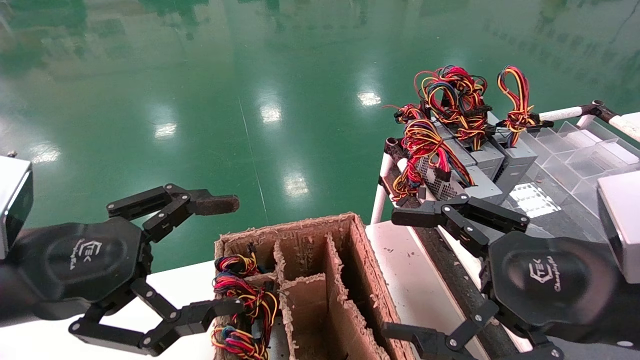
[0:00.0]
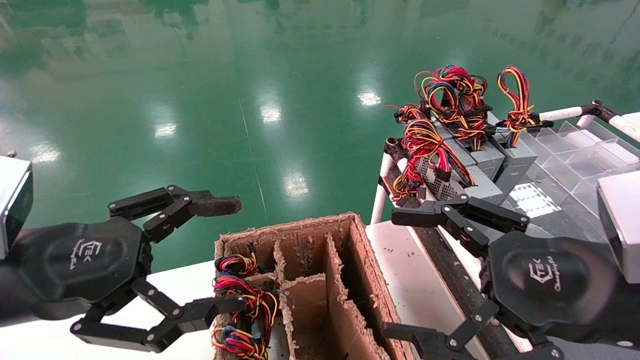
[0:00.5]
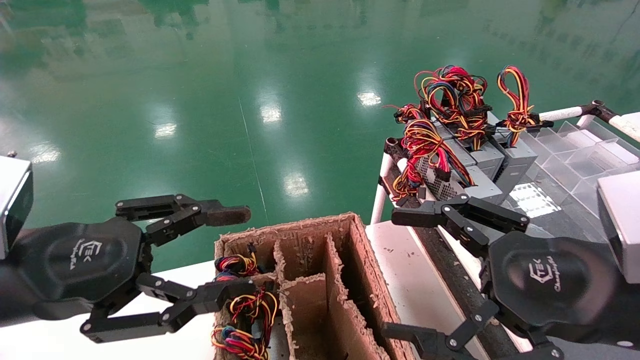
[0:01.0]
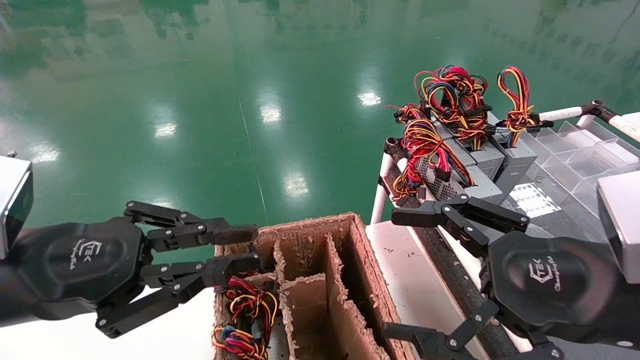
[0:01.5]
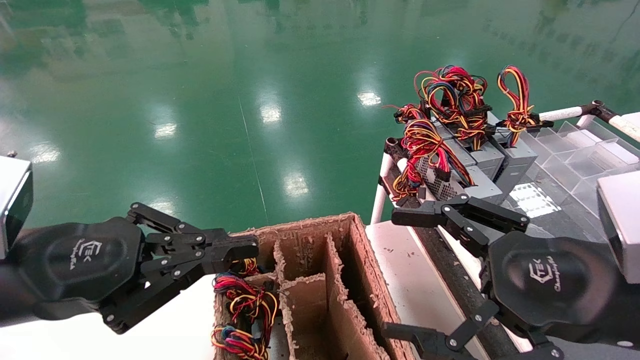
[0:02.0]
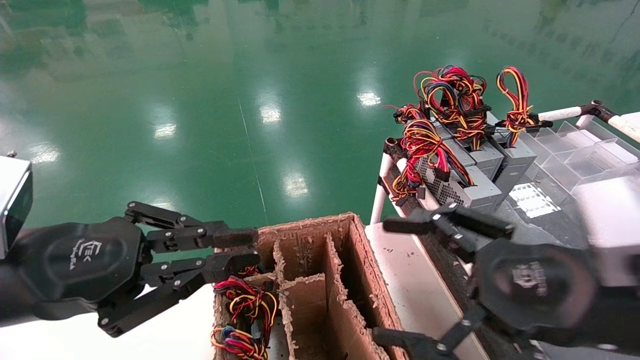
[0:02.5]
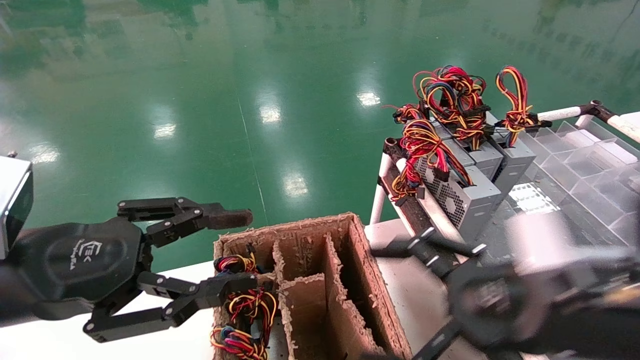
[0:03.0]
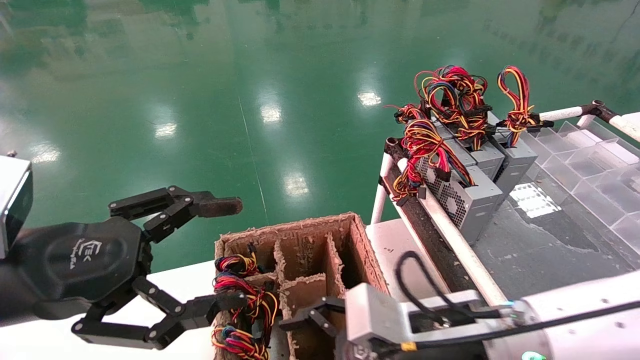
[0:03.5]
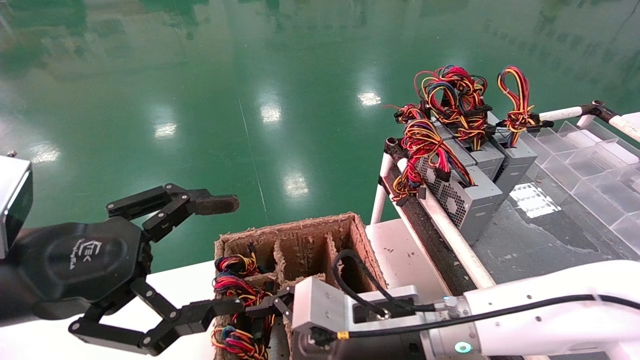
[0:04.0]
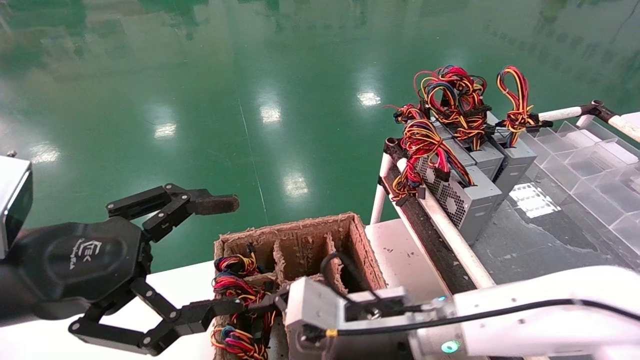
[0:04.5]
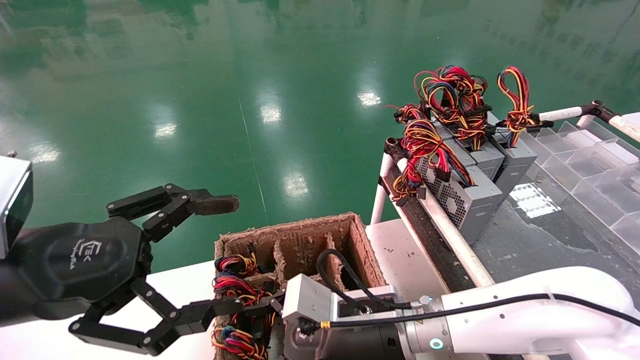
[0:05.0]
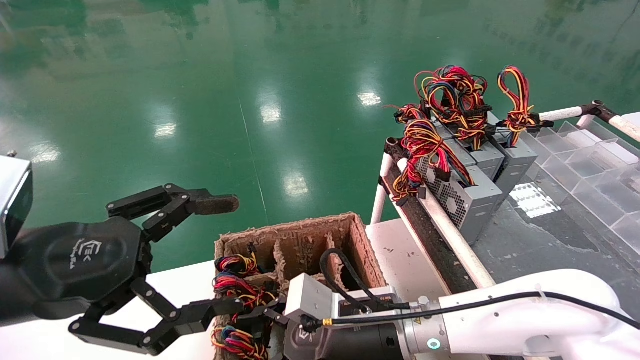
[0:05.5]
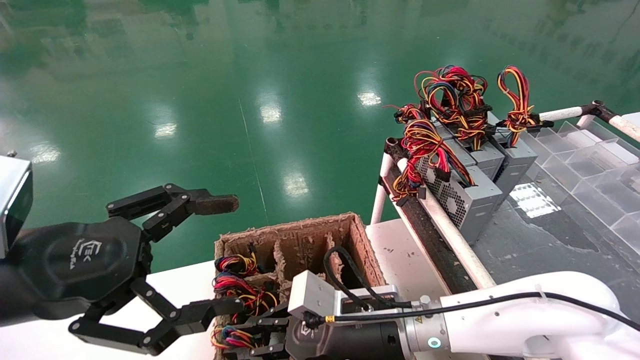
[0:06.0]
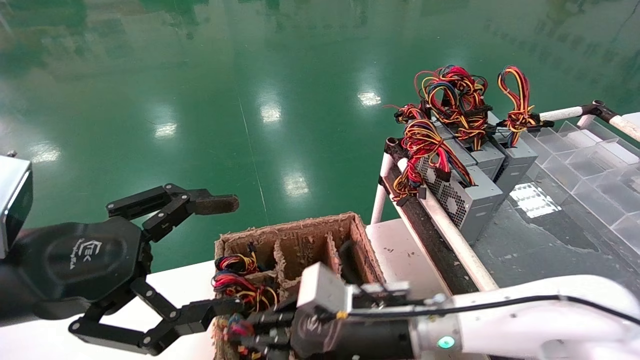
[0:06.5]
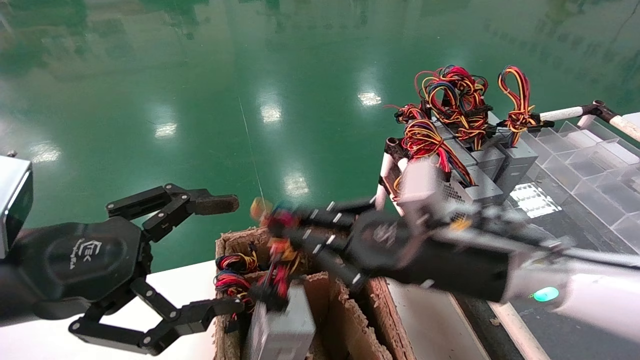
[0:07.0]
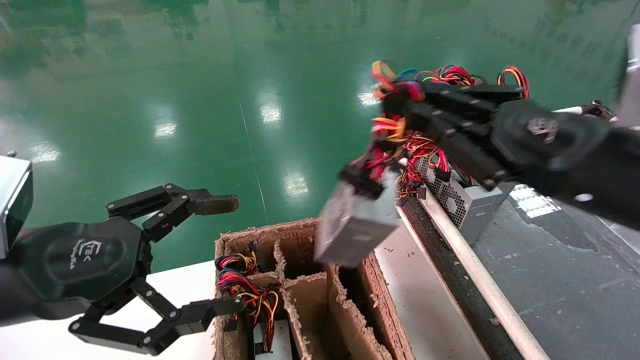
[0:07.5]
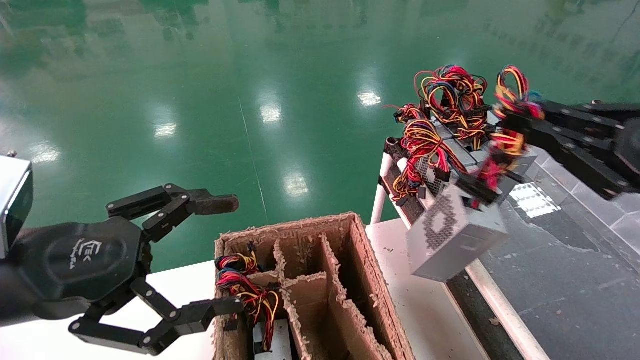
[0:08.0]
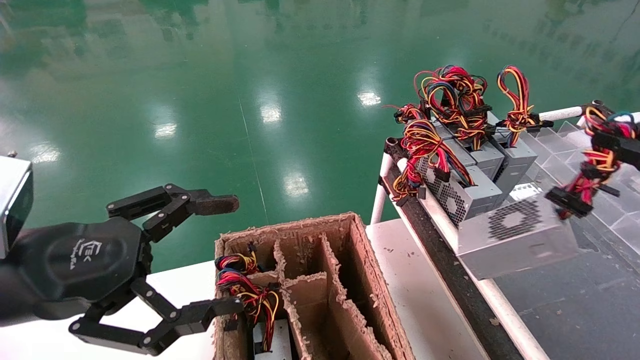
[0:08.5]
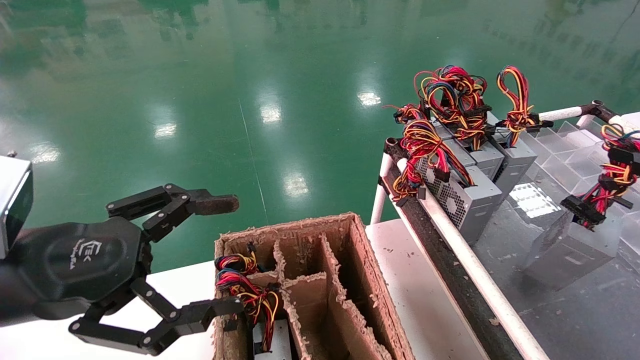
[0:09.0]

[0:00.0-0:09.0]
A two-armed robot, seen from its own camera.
Step, 0:02.0 to 0:06.0: Grab and lift the power supply from the large box.
0:00.0 to 0:02.0: The left gripper closes.
0:02.0 to 0:04.5: The left gripper opens its fingers. The right gripper heads to the left, downward and forward, covering about 25 cm.
0:04.5 to 0:07.0: The right gripper moves upward and to the right, about 15 cm, and closes.
0:07.0 to 0:09.0: The right gripper travels to the right by approximately 30 cm.

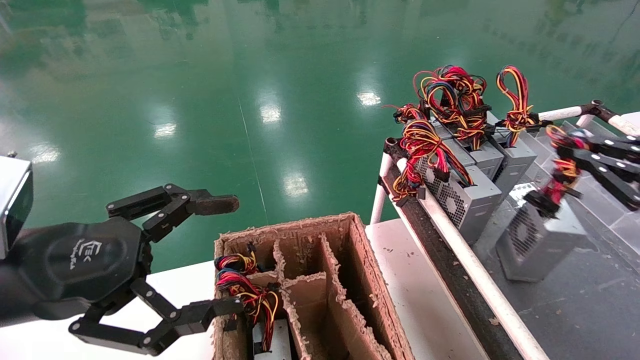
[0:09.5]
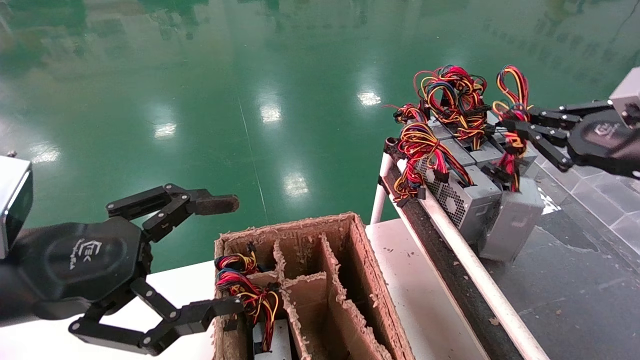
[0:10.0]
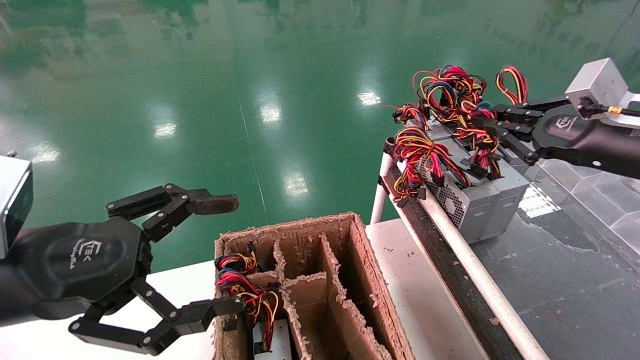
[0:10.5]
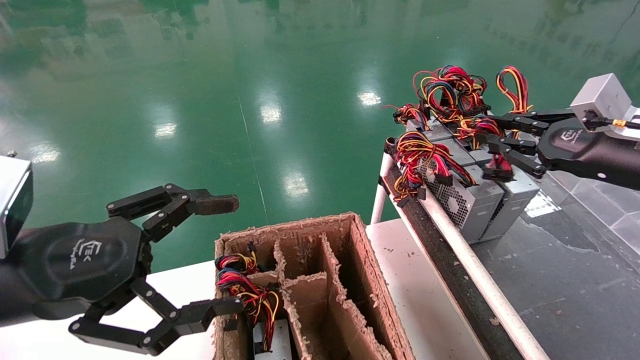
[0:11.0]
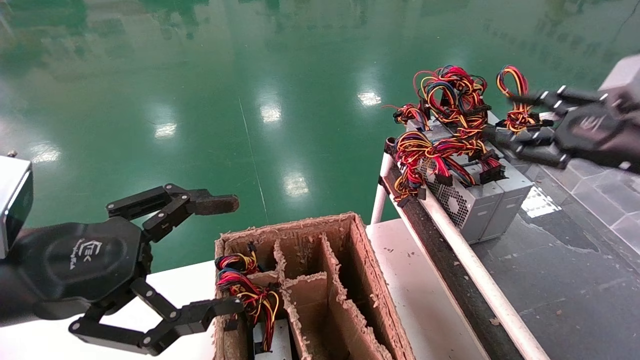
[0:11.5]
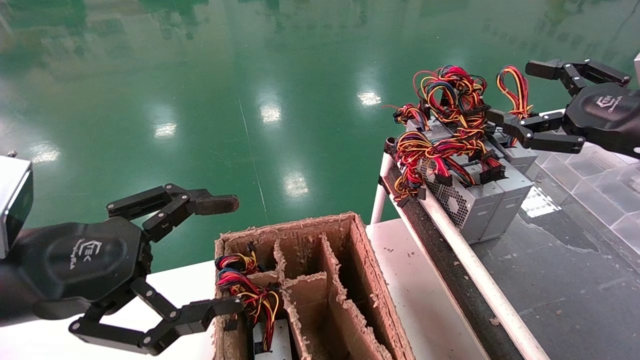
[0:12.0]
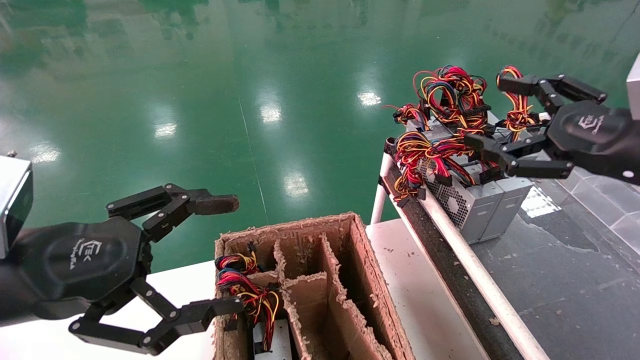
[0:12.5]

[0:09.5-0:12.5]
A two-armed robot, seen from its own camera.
0:09.5 to 0:11.0: The right gripper moves forward and to the left, some 10 cm.
0:11.0 to 0:12.5: The right gripper is displaced backward by roughly 5 cm, and opens up.

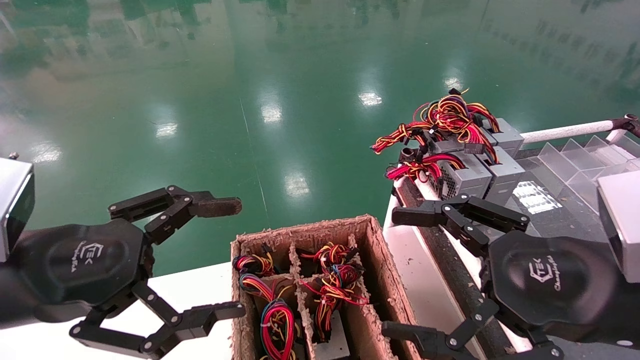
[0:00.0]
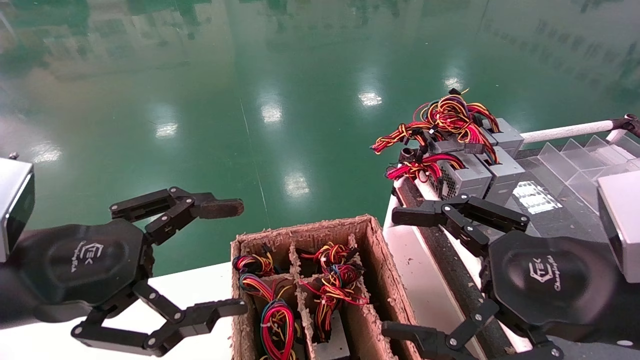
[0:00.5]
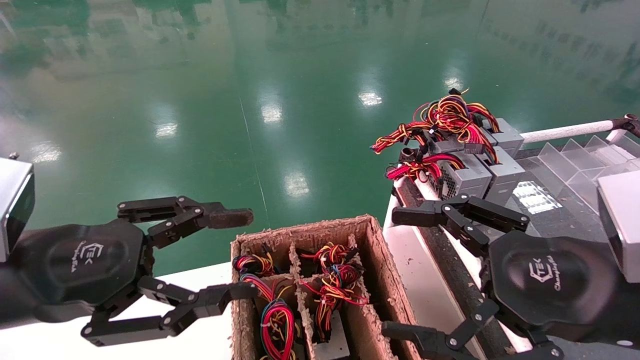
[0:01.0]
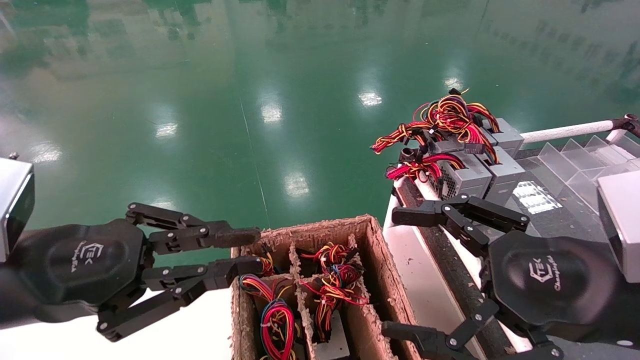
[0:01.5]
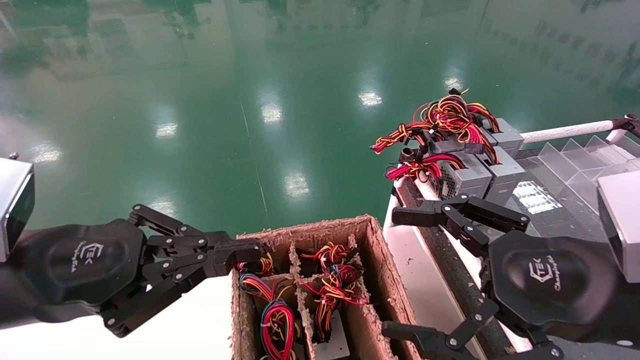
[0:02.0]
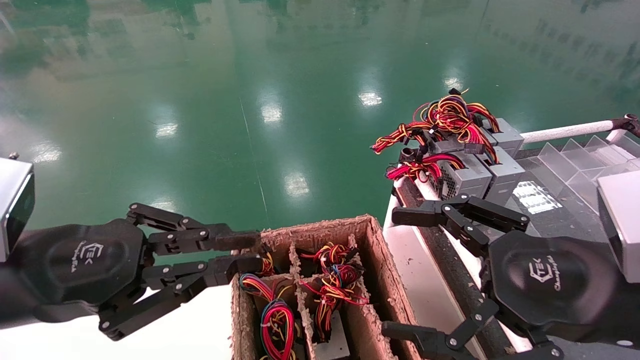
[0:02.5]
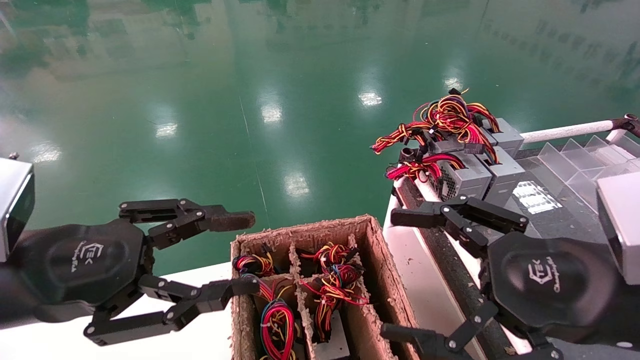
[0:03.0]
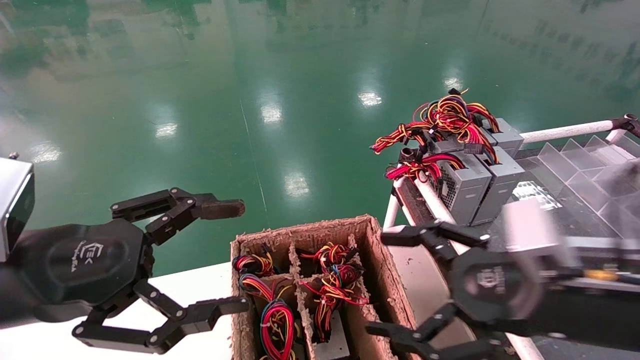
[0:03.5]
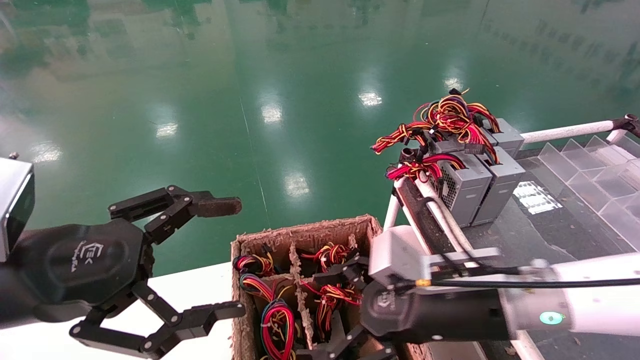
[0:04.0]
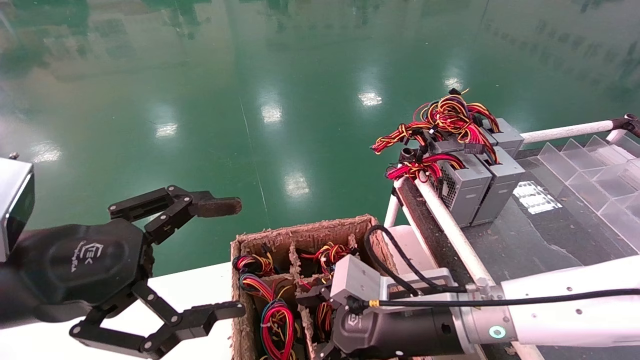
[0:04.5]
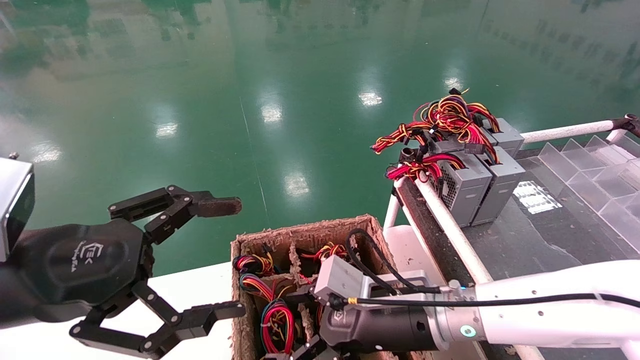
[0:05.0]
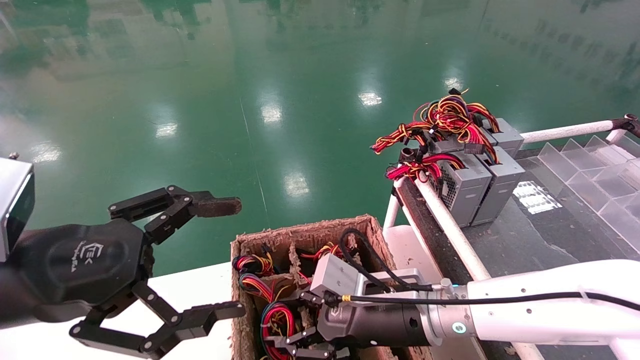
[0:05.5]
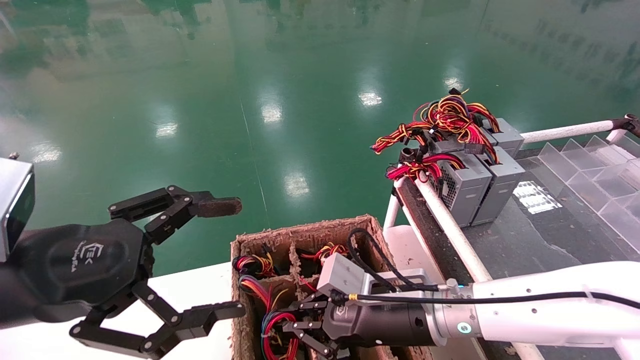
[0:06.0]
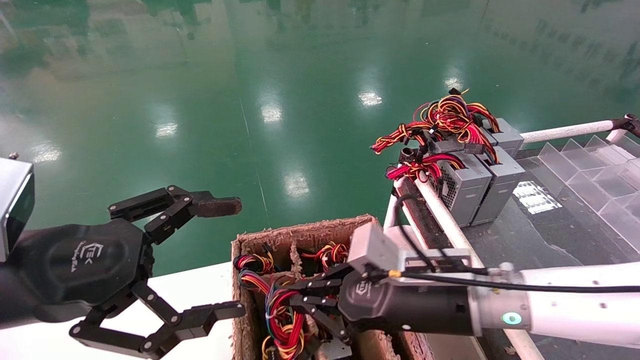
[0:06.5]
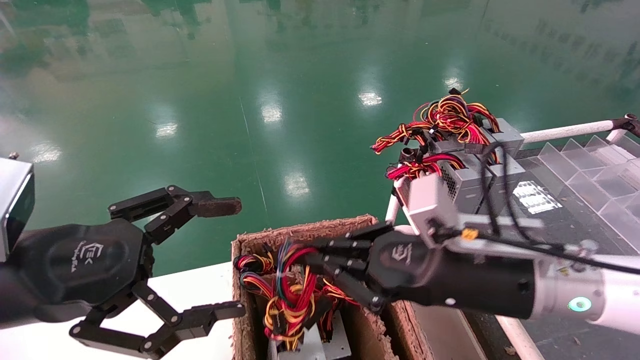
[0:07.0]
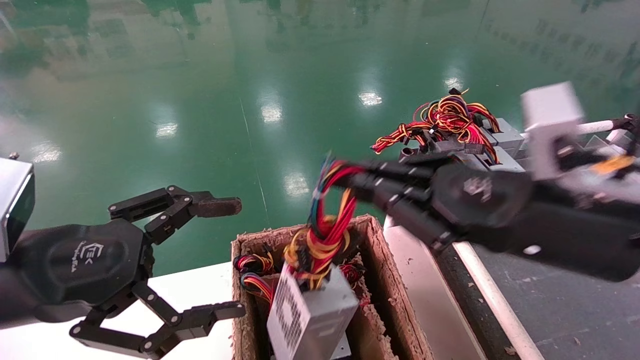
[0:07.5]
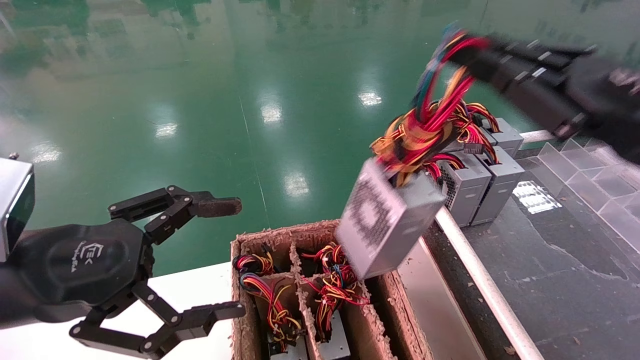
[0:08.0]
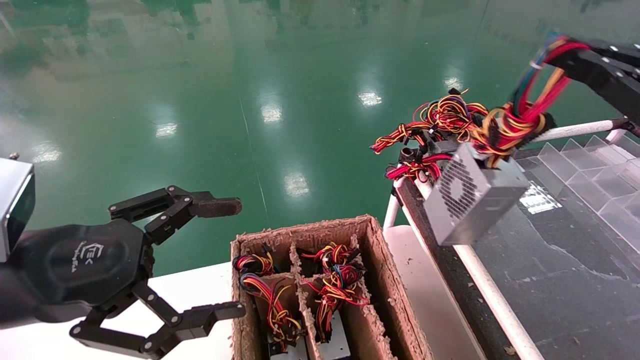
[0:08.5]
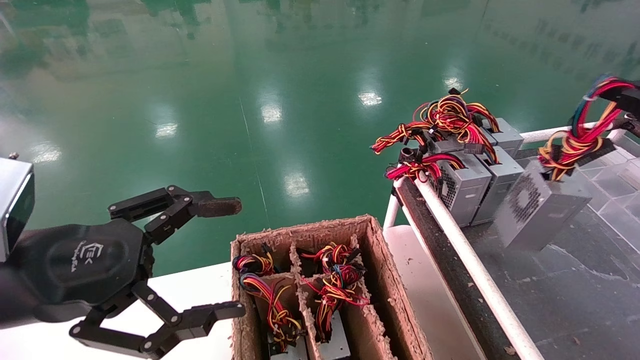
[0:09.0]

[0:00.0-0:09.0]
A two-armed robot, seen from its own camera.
Step, 0:02.5 to 0:06.0: Grab and lift the power supply from the large box.
0:00.0 to 0:02.0: The left gripper closes its fingers.
0:02.0 to 0:04.5: The right gripper goes about 20 cm to the left, downward and forward, while the left gripper opens.
0:04.5 to 0:07.0: The right gripper is displaced upward by approximately 5 cm, and closes.
0:07.0 to 0:09.0: The right gripper is displaced to the right by some 30 cm.
